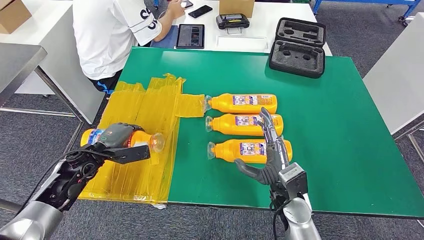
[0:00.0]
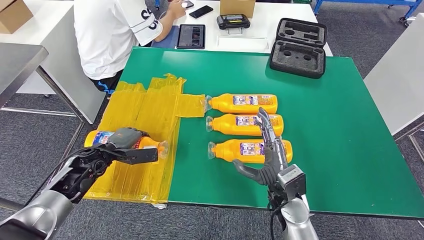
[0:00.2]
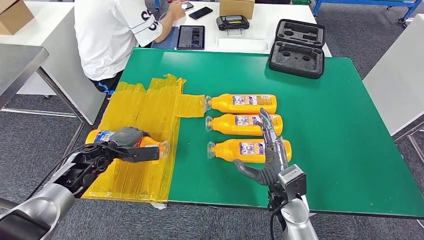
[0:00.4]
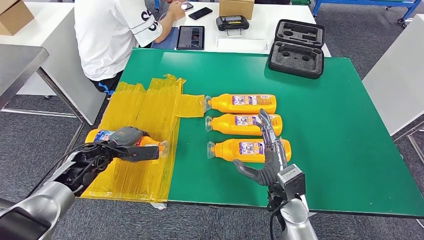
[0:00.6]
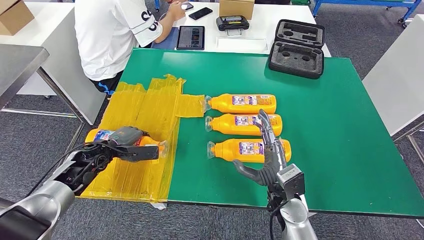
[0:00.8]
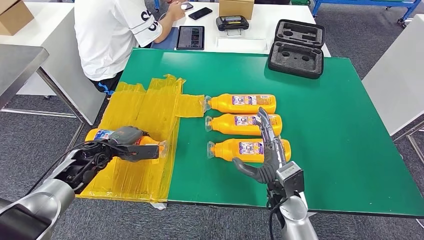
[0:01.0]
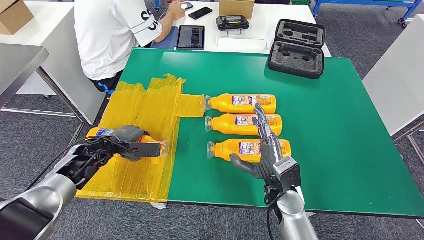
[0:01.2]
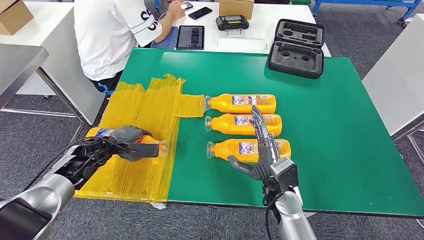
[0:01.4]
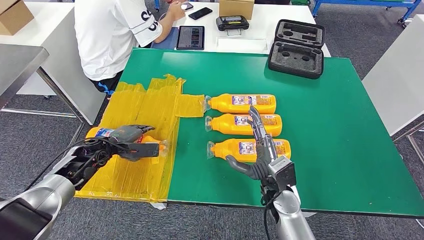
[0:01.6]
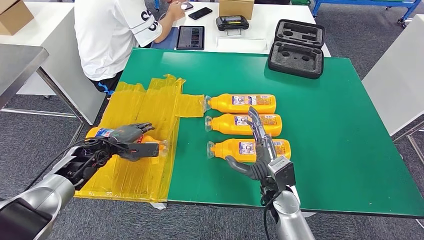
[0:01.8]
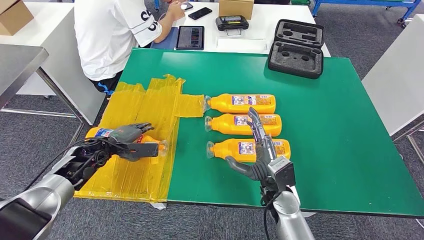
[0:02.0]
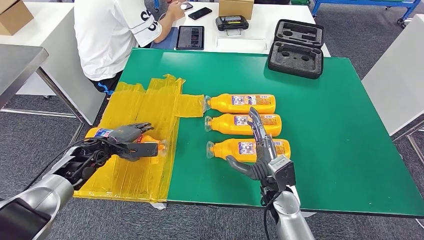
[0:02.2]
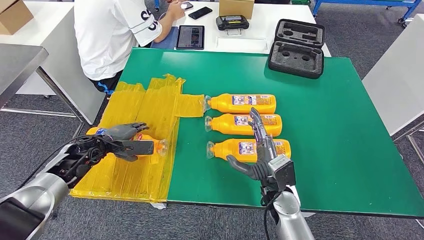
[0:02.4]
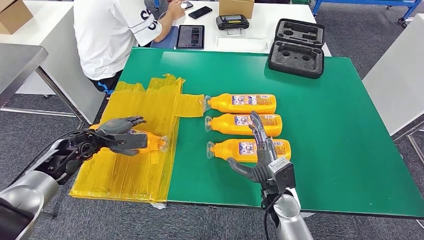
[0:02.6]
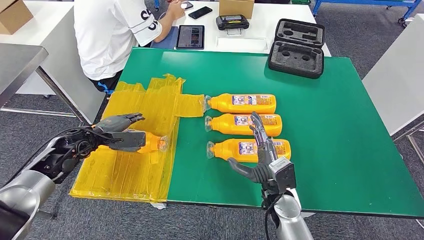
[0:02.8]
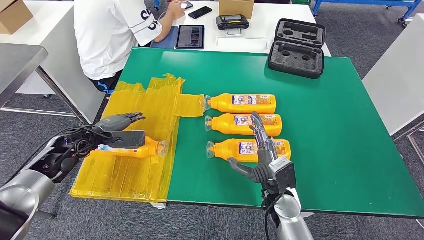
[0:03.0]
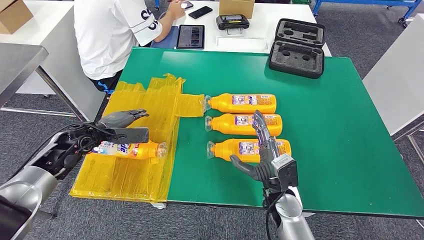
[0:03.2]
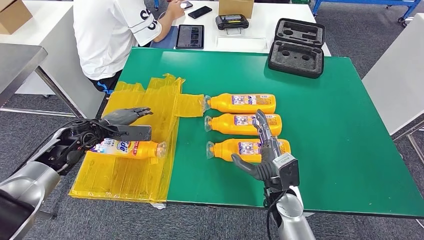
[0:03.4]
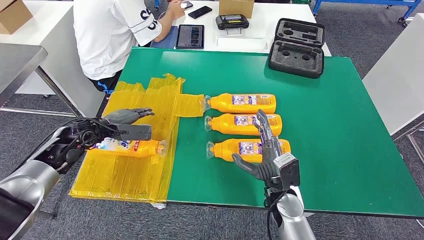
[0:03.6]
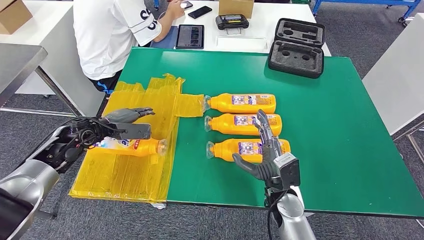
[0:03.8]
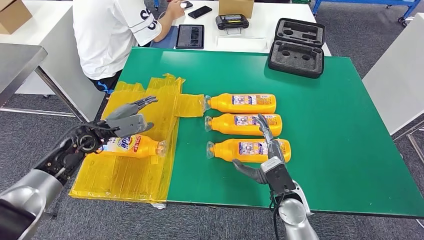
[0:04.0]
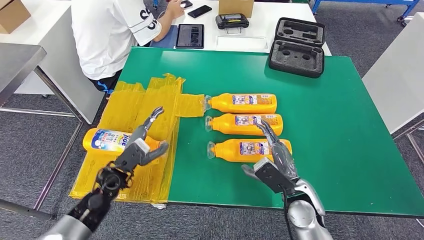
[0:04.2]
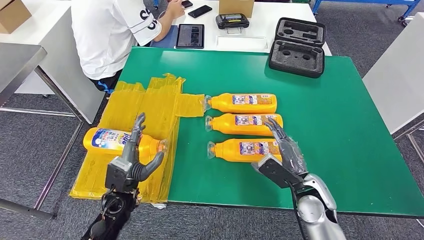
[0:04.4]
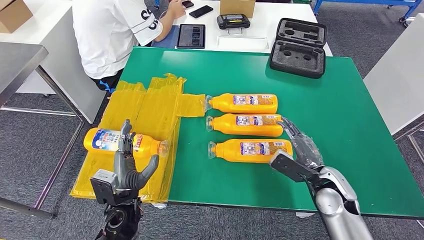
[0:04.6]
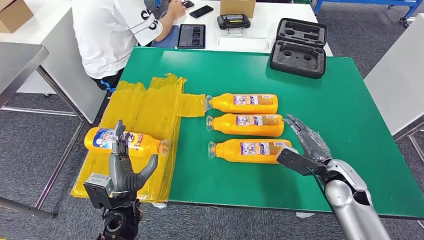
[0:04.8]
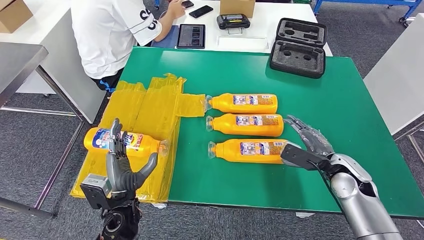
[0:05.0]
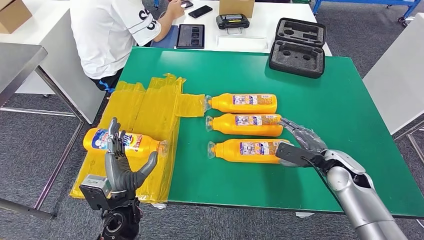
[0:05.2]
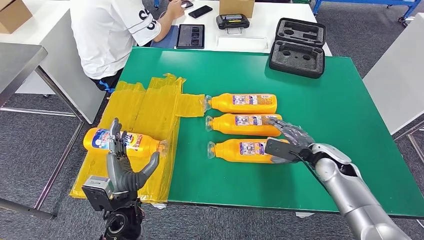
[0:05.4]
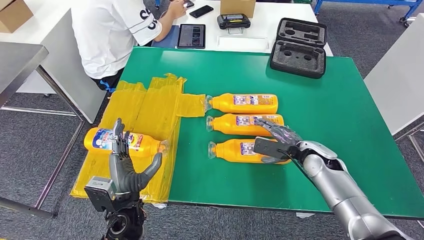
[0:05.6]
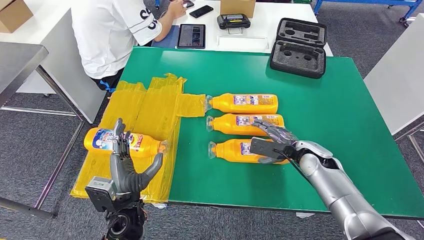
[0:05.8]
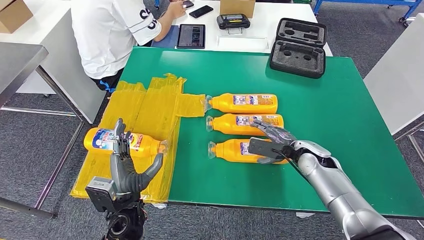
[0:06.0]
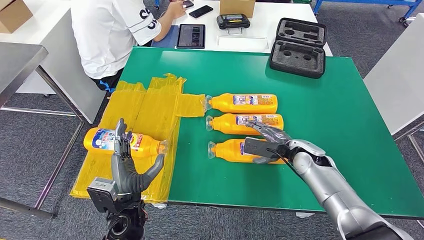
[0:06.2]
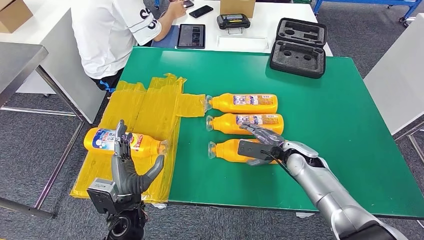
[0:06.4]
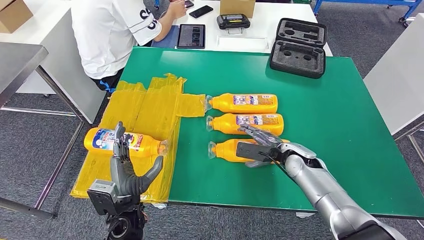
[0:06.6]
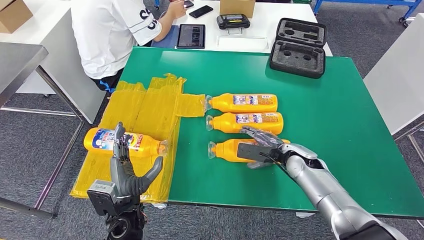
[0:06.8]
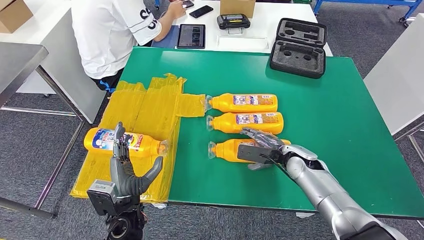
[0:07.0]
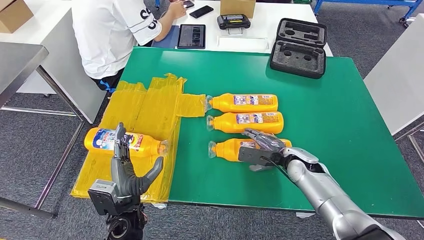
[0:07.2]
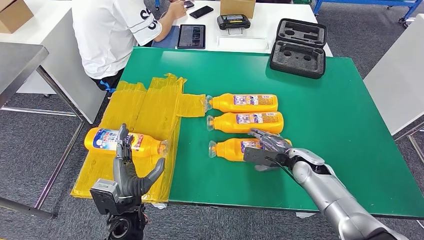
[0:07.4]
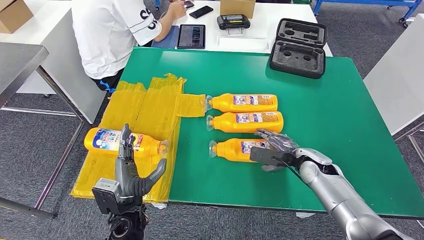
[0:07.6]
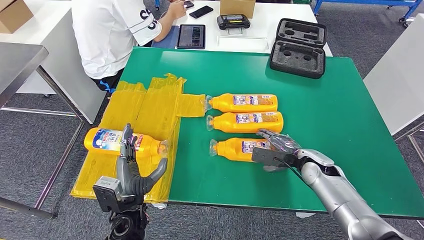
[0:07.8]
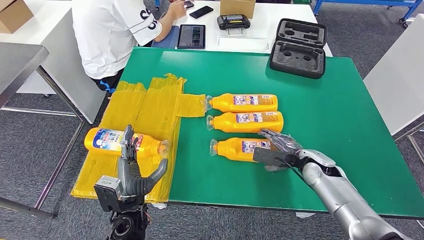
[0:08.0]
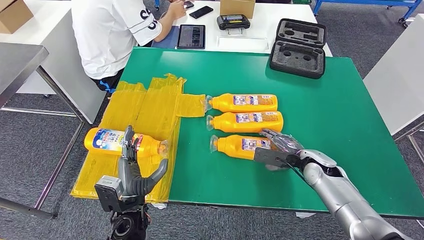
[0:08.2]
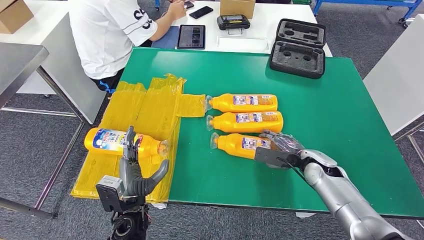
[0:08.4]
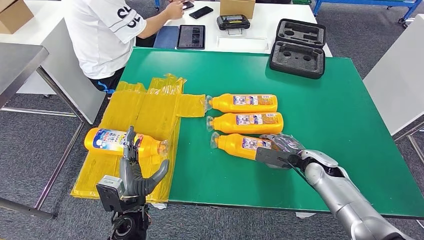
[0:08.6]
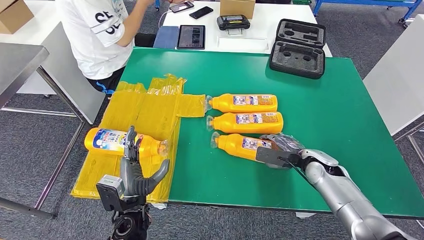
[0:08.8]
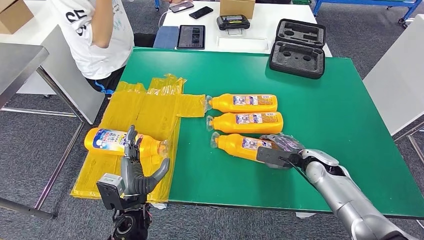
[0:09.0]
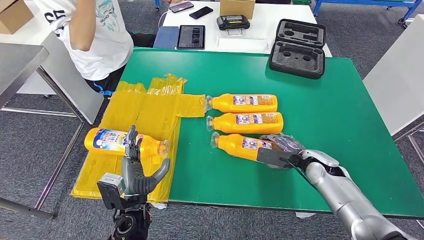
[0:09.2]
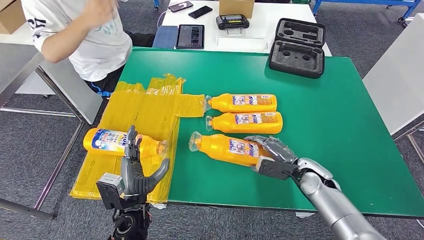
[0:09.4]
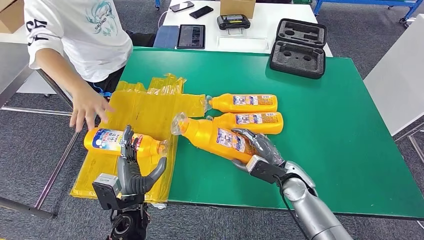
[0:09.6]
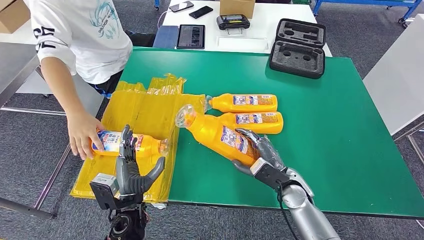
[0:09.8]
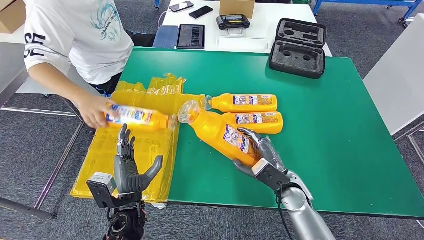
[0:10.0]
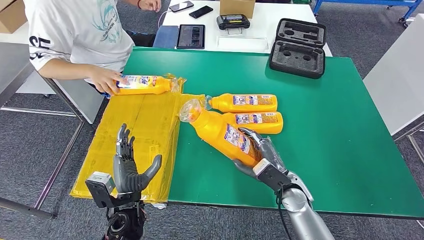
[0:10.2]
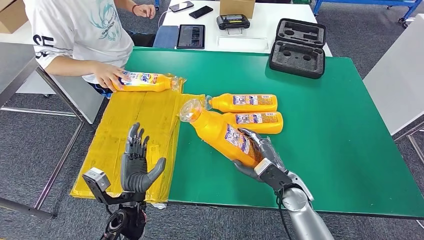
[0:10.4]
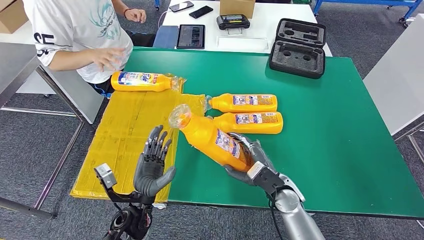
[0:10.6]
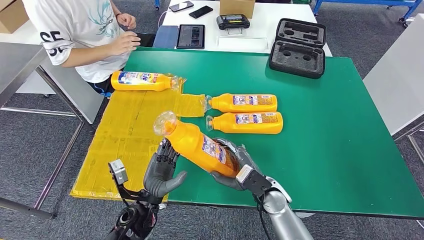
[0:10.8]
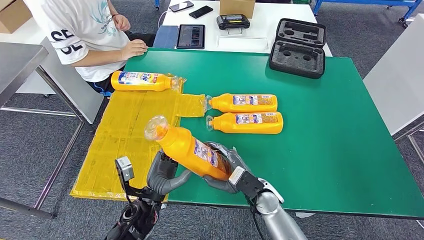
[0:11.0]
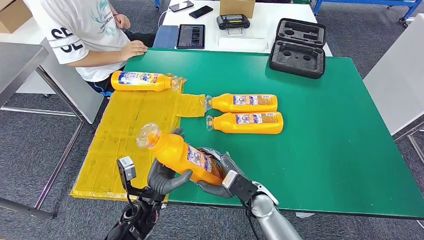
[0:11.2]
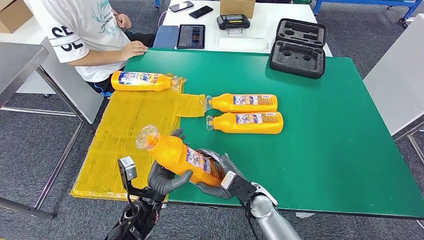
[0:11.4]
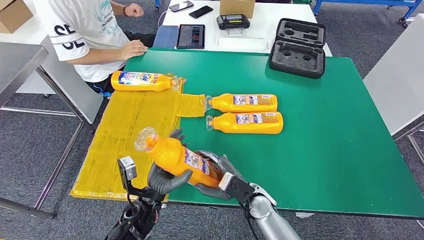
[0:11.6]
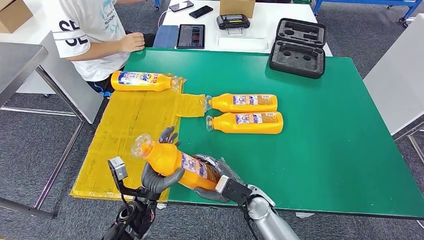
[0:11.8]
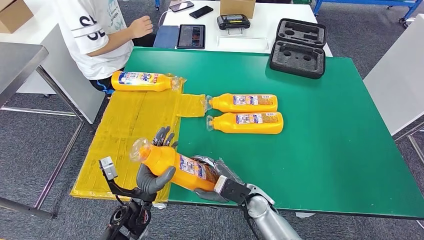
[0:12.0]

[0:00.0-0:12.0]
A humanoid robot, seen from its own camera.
Step, 0:00.4 to 0:12.0: Pick up the bottle from the table.
0:01.6 to 0:03.0: The left hand shifts by roughly 5 cm.
0:04.4 to 0:06.0: The left hand ends up some 5 cm from where it was; the right hand travels forward by about 10 cm.
0:06.0 to 0:09.0: The hands move only a little.
0:09.0 to 0:10.4: The right hand heads to the left and backward, covering about 10 cm.
0:10.4 to 0:12.0: The right hand heads to the left, covering roughly 10 cm.

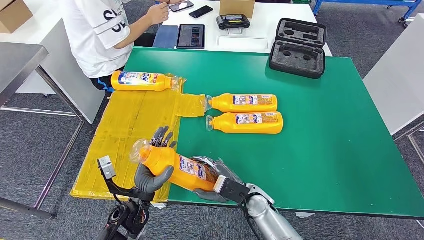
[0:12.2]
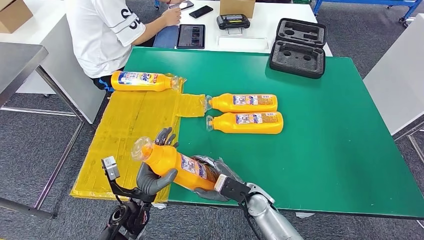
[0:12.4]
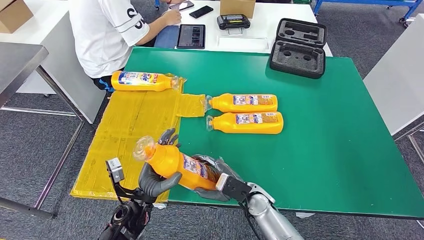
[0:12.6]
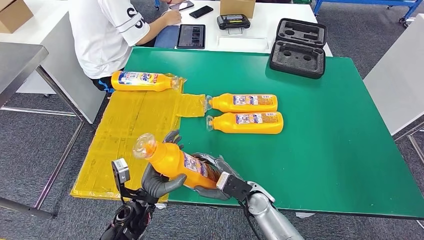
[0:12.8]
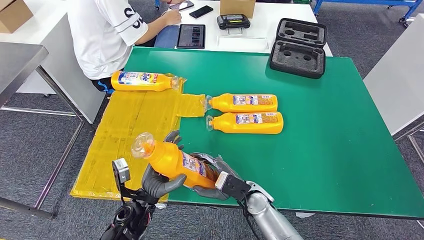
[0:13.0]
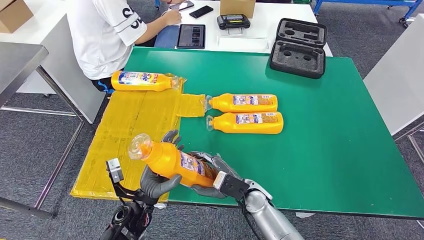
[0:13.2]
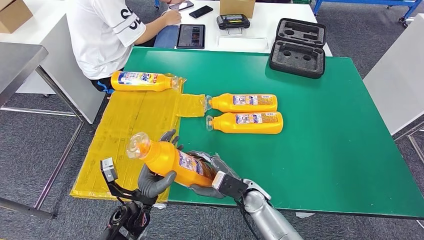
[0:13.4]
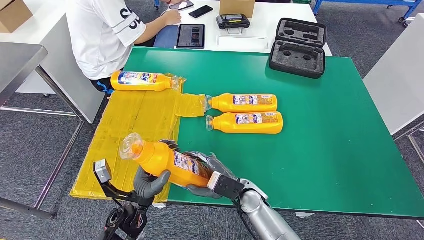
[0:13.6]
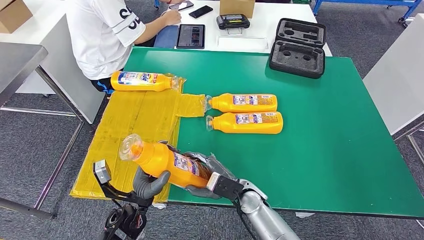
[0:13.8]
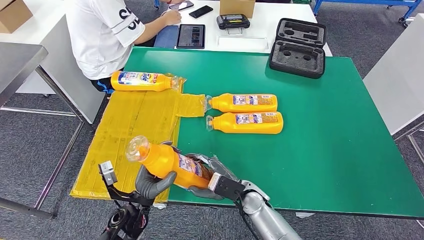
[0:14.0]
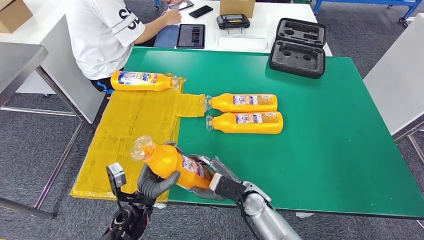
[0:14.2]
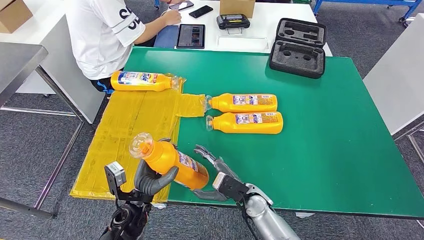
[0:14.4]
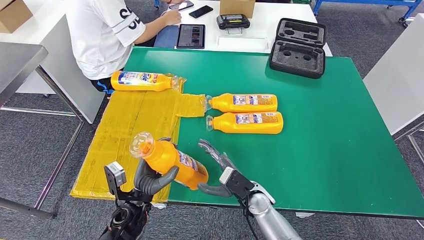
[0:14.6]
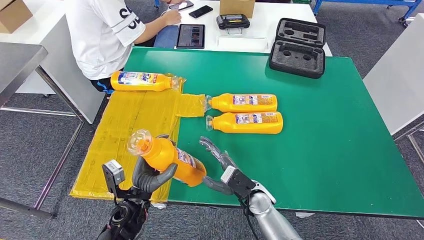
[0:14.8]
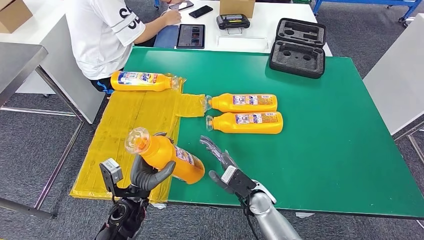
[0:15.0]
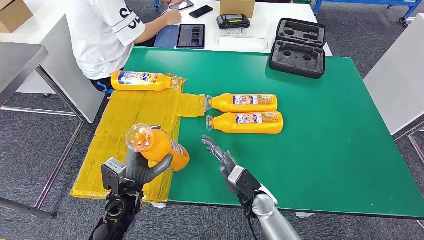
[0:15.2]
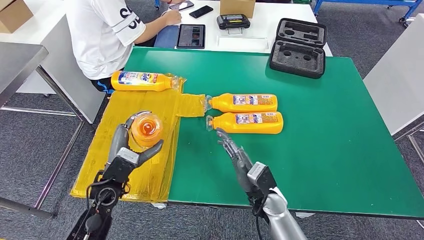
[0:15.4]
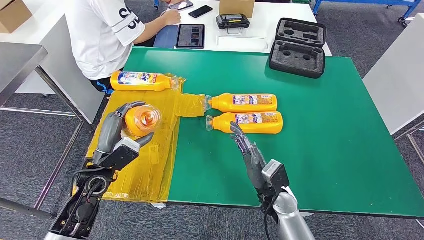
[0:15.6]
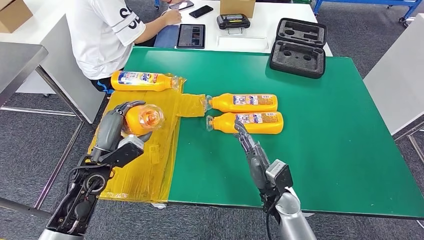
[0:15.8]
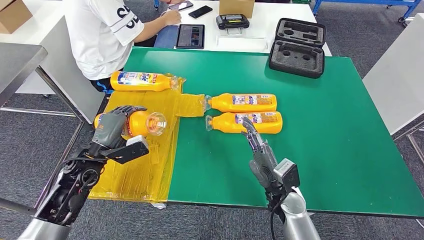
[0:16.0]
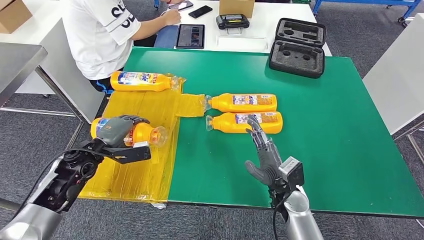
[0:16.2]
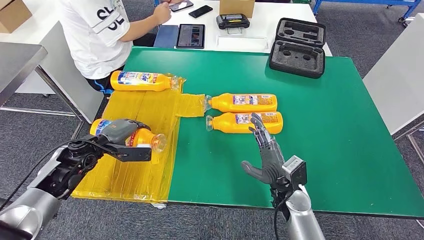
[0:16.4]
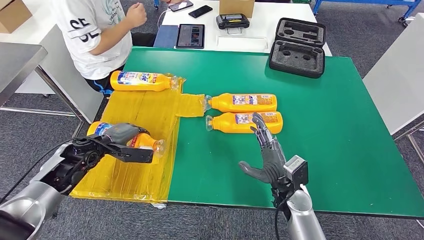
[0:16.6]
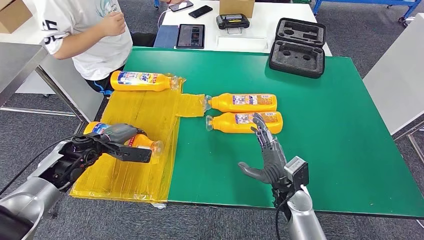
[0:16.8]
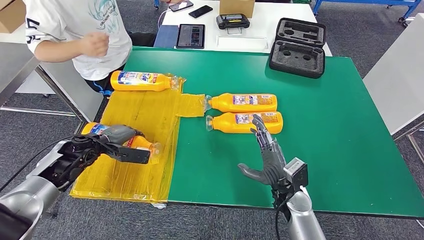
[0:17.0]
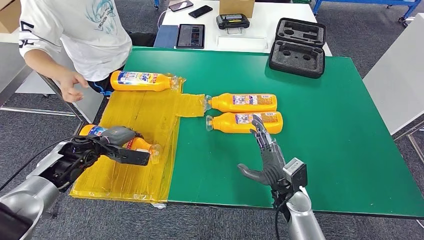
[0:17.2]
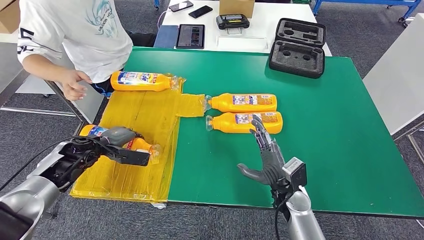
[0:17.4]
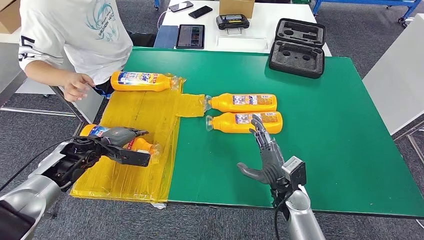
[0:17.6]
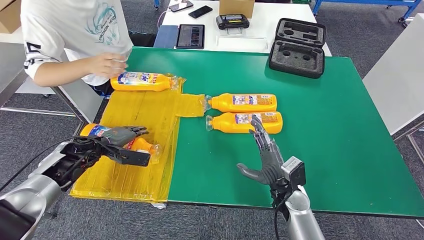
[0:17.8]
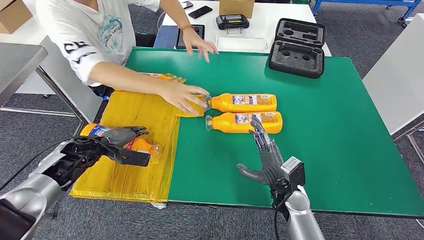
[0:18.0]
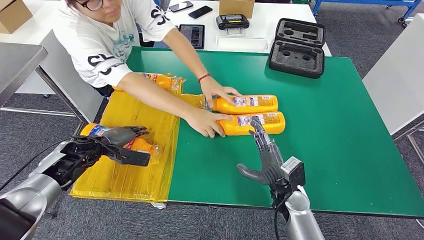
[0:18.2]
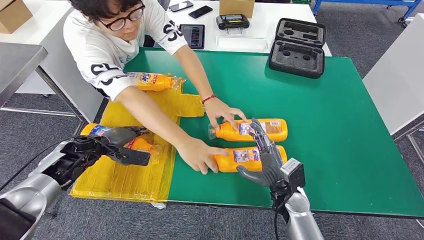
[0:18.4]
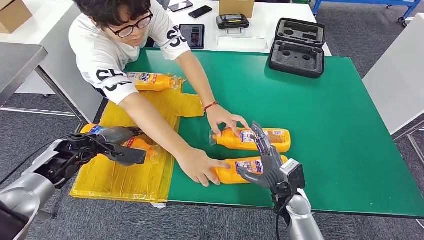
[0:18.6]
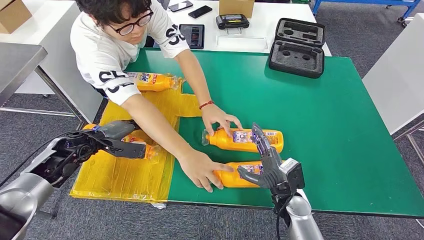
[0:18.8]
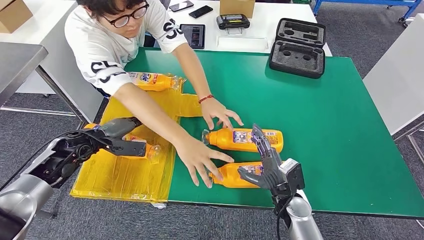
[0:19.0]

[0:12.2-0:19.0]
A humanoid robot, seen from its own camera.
Step, 0:12.2 to 0:17.4: Flip the bottle to face forward.
0:12.2 to 0:13.6: The hands make only small movements.
0:15.0 to 0:16.2: The right hand is displaced to the right by some 5 cm; the left hand is displaced to the left, forward and upward by some 20 cm.
0:16.2 to 0:17.6: The left hand ends up some 5 cm from where it was.
